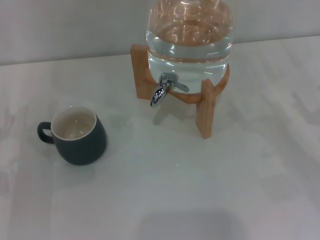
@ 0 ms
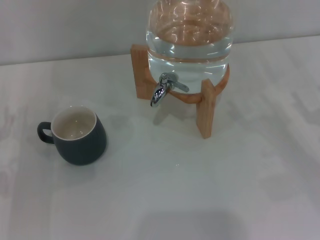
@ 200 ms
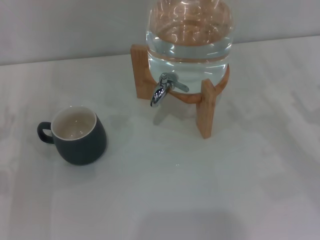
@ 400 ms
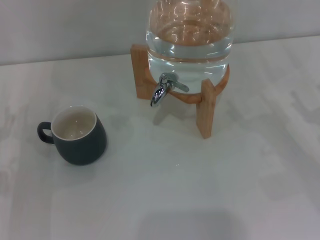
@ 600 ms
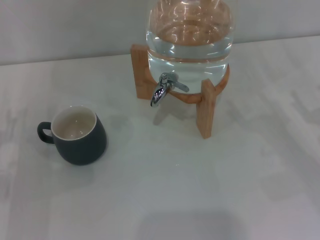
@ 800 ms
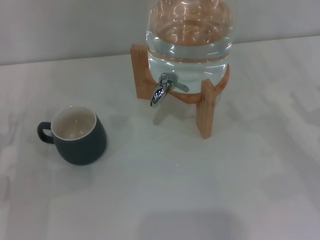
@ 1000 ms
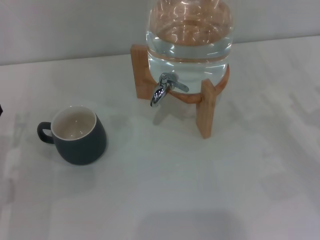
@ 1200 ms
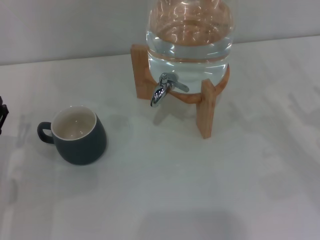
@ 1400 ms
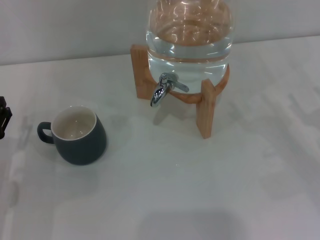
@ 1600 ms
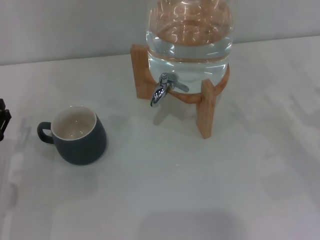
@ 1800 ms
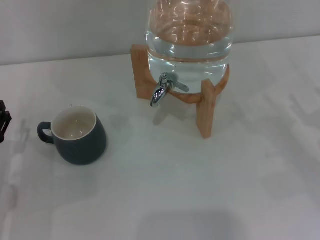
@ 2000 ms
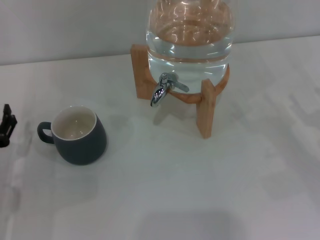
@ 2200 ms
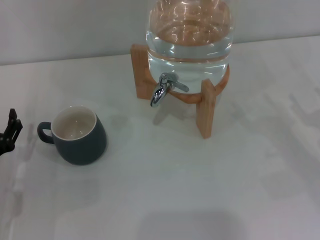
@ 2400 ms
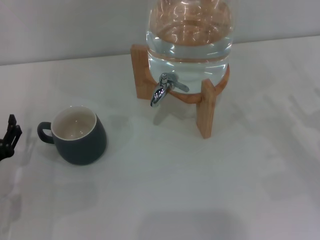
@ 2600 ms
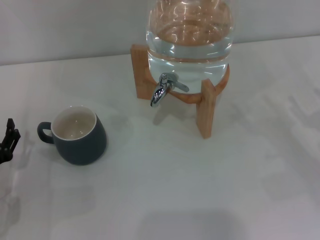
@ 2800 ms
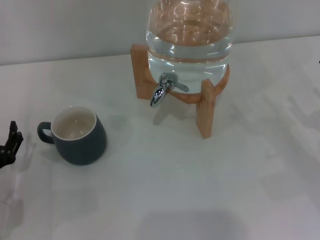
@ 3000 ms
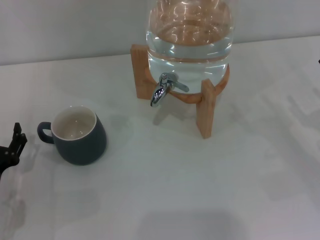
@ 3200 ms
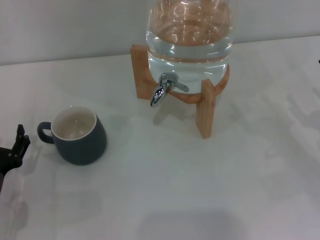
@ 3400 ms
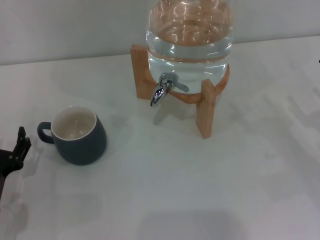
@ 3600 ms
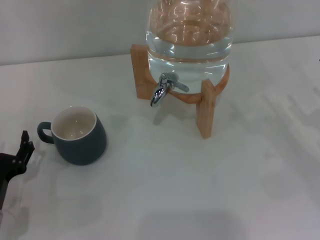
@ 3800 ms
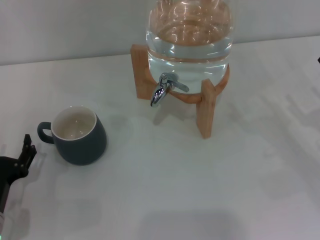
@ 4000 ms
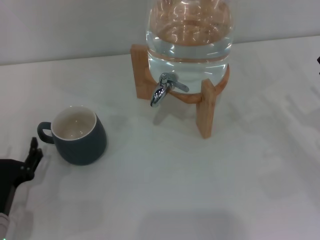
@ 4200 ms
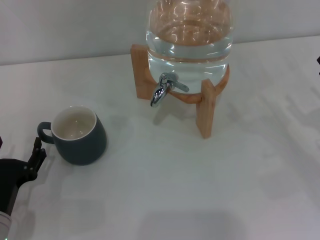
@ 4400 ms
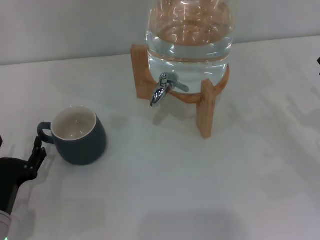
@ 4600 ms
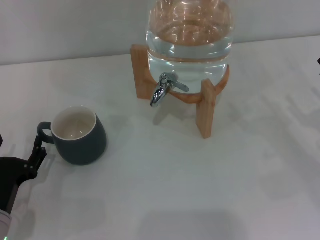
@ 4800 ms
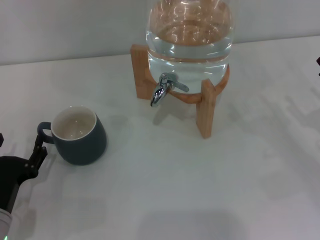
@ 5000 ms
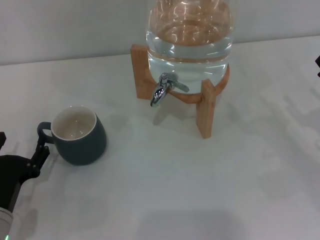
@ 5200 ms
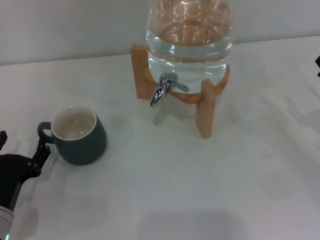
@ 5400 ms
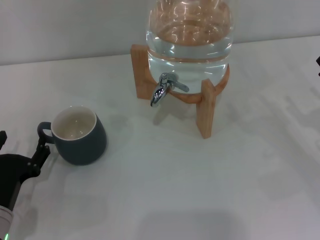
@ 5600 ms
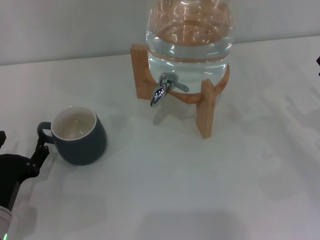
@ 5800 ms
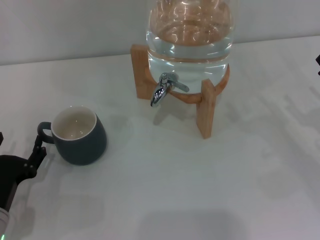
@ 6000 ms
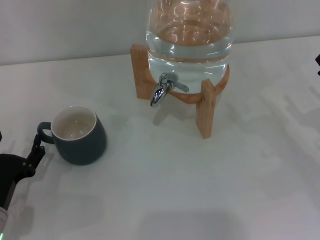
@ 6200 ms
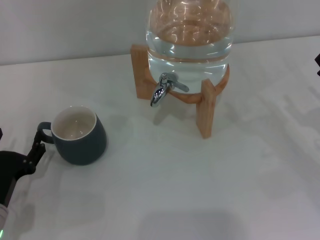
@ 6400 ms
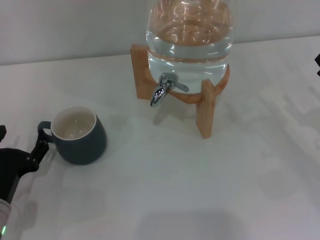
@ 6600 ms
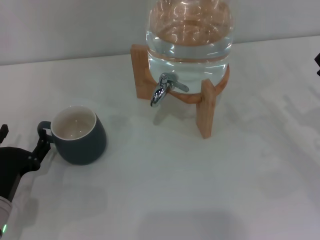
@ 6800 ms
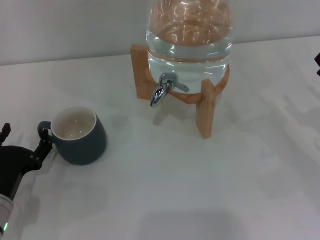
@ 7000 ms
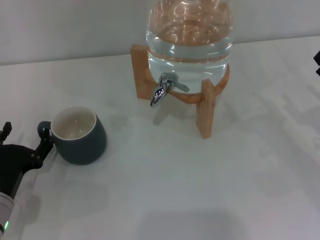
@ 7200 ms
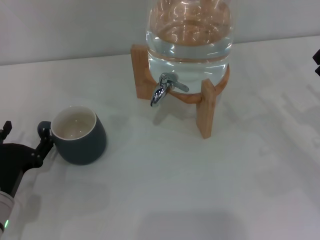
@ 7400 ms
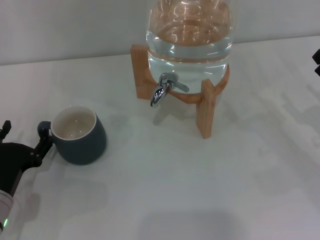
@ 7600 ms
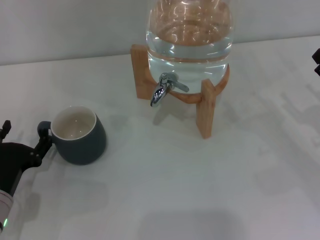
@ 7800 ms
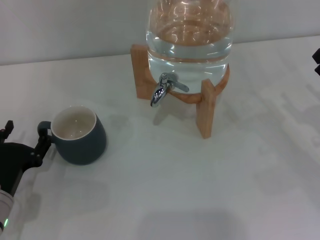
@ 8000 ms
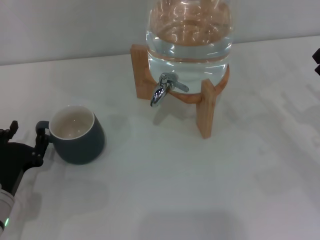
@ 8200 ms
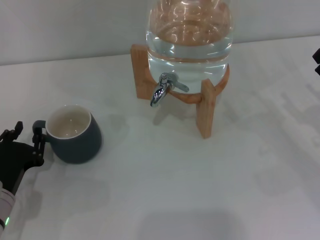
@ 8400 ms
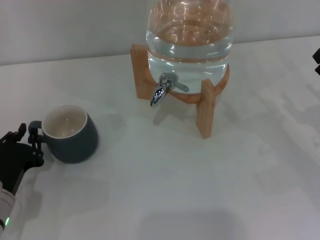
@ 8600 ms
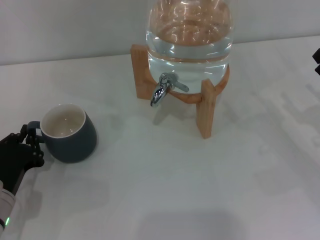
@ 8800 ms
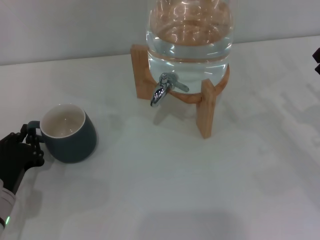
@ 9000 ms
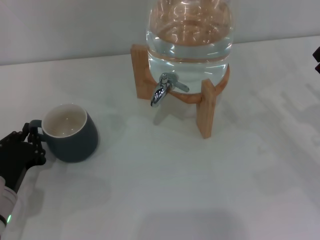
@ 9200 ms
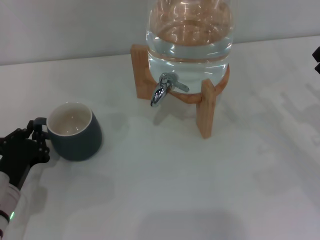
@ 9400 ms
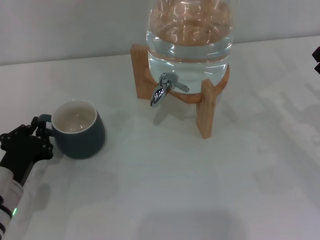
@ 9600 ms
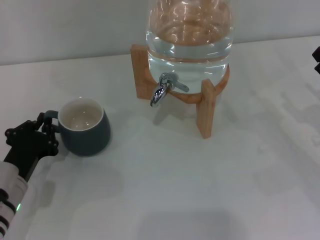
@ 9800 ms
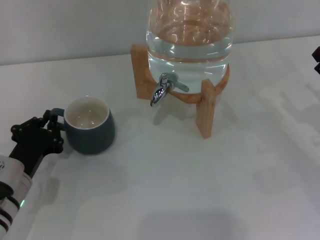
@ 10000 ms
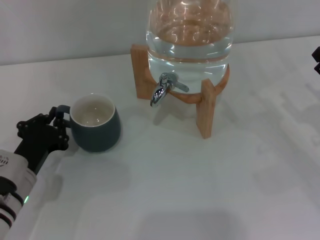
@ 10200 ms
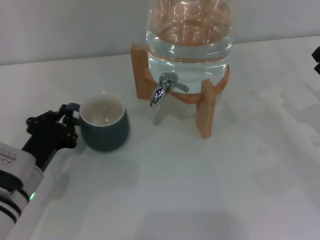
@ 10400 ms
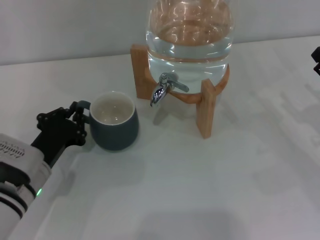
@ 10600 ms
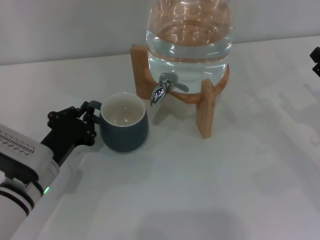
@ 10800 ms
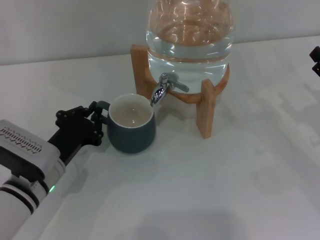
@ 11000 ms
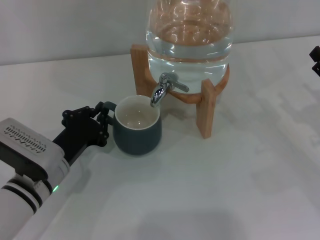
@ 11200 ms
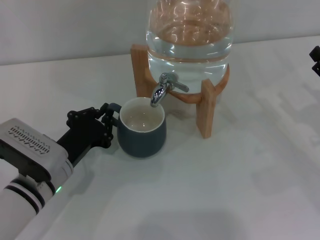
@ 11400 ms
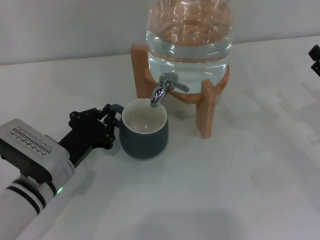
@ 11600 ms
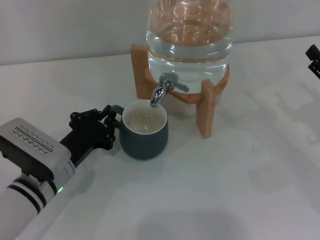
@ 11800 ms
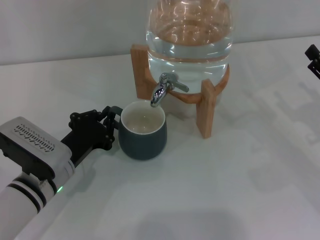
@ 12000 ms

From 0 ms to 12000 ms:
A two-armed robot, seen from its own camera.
Task of the whole recording: the left gripper pick up the black cup and place it horizontally under the faucet, the right gripper turn on the faucet to fill the cup, and then turn off the faucet.
From 1600 ms to 3000 ms: The grippers move only a little.
From 3000 ms to 4400 ms: The grippers make only small movements.
From 4400 ms to 6000 ms: Both grippers stay about where they are.
From 6000 ms to 7600 ms: The grippers move only a little.
From 7600 ms to 9000 ms: The left gripper closes.
From 9000 ms to 10400 ms: The left gripper ends up some 5 cm from where it was.
From 10400 ms to 12000 ms: The grippers move only a little.

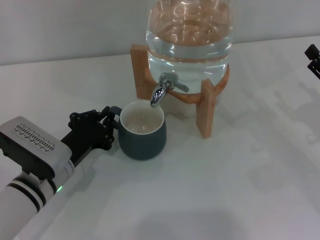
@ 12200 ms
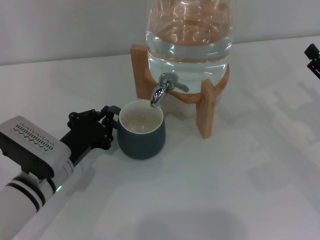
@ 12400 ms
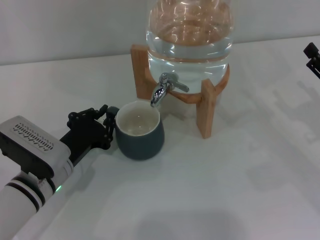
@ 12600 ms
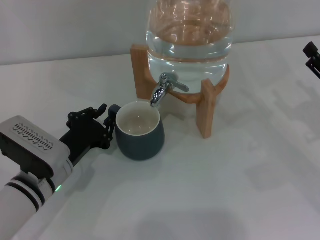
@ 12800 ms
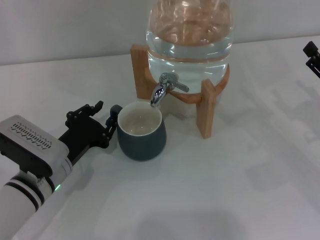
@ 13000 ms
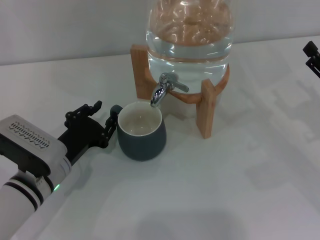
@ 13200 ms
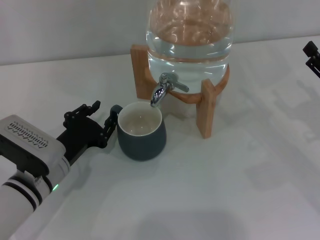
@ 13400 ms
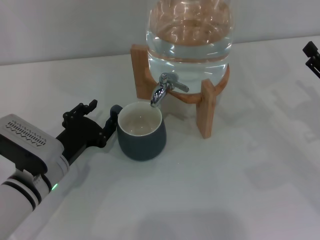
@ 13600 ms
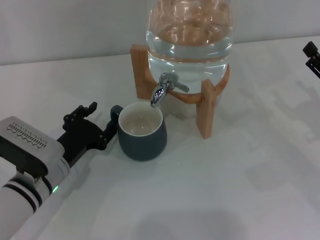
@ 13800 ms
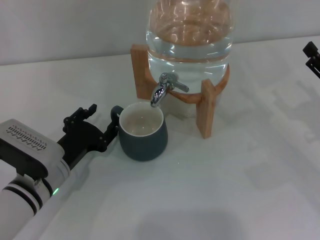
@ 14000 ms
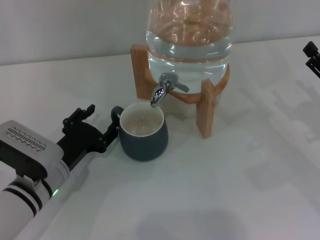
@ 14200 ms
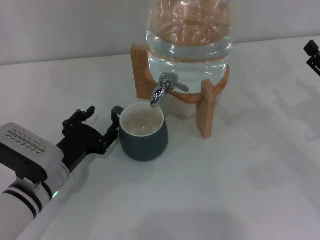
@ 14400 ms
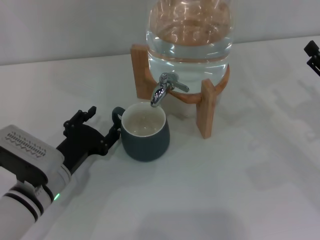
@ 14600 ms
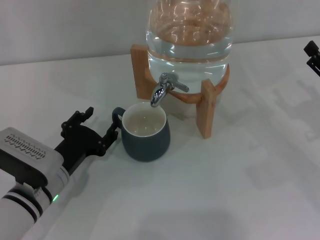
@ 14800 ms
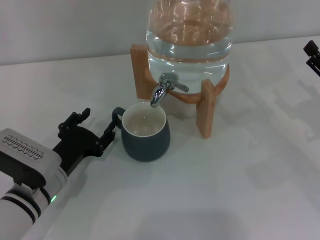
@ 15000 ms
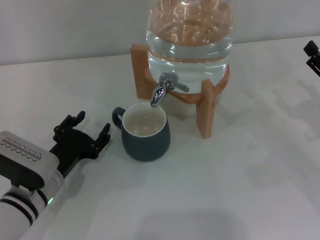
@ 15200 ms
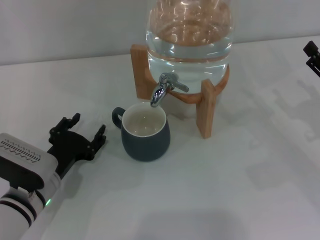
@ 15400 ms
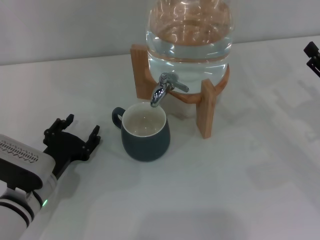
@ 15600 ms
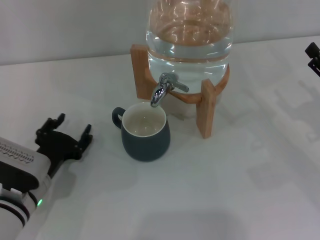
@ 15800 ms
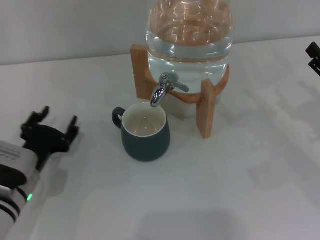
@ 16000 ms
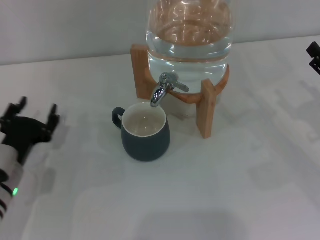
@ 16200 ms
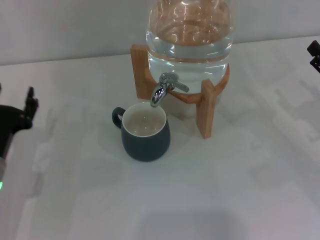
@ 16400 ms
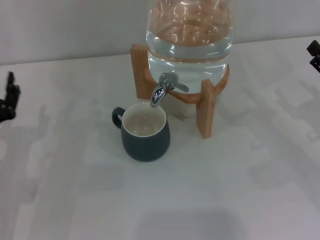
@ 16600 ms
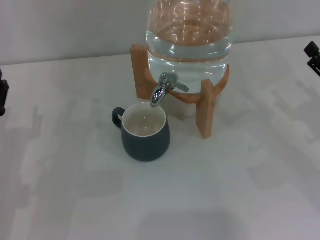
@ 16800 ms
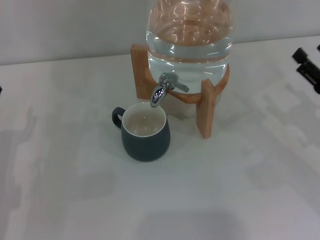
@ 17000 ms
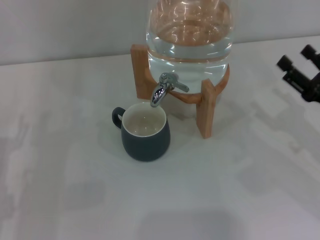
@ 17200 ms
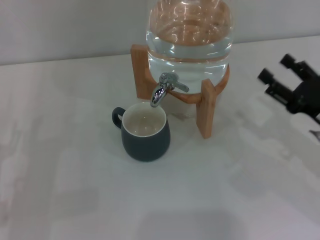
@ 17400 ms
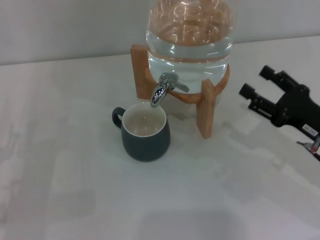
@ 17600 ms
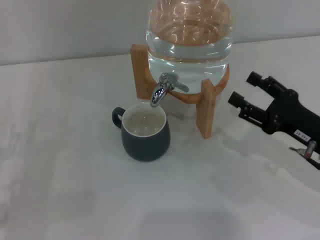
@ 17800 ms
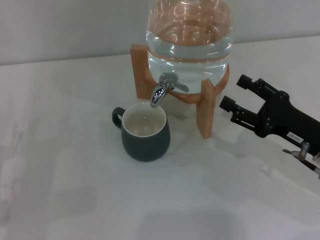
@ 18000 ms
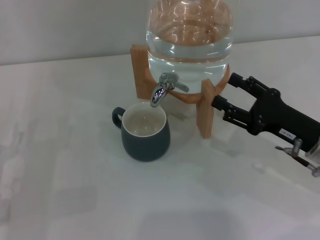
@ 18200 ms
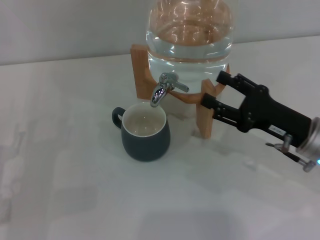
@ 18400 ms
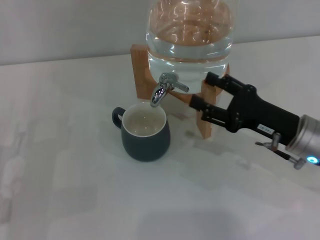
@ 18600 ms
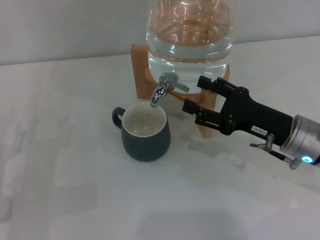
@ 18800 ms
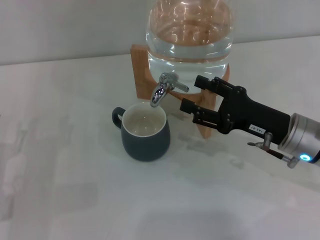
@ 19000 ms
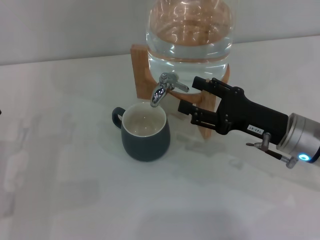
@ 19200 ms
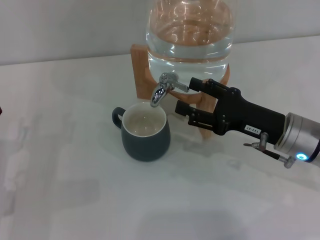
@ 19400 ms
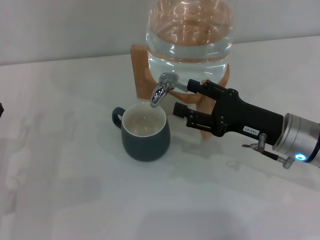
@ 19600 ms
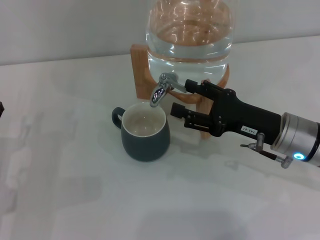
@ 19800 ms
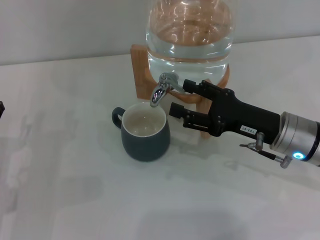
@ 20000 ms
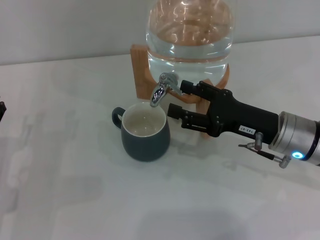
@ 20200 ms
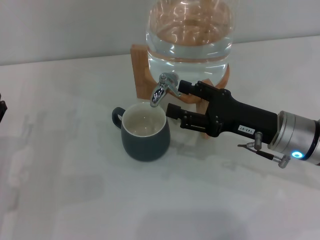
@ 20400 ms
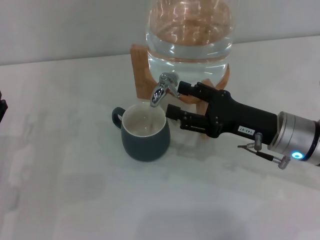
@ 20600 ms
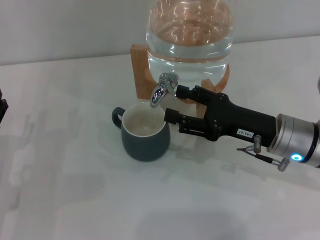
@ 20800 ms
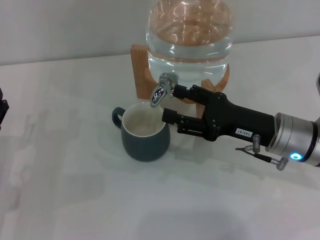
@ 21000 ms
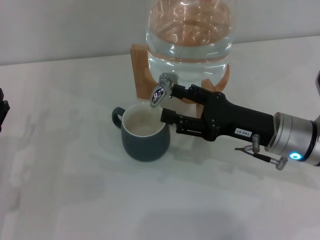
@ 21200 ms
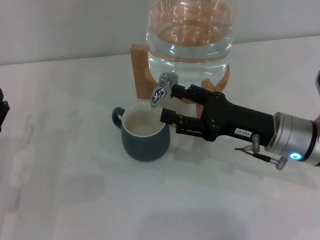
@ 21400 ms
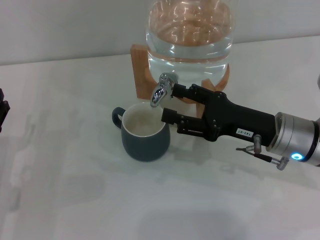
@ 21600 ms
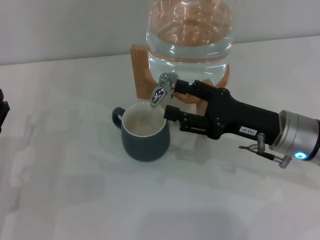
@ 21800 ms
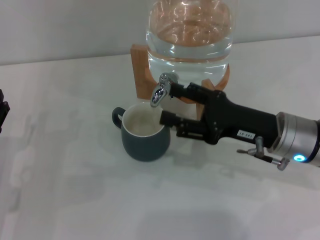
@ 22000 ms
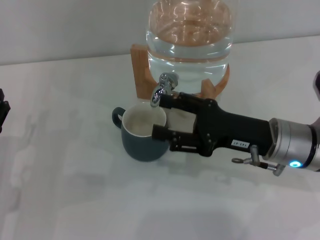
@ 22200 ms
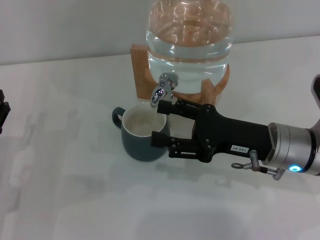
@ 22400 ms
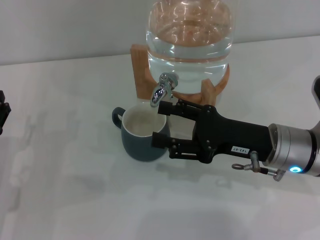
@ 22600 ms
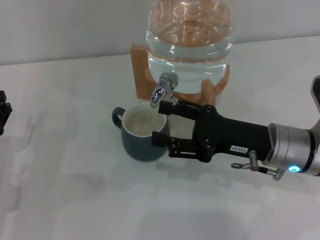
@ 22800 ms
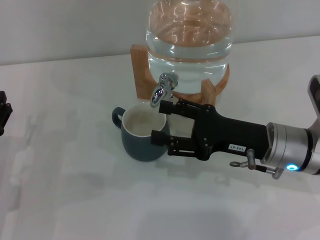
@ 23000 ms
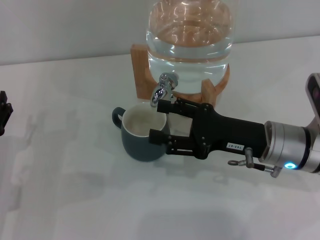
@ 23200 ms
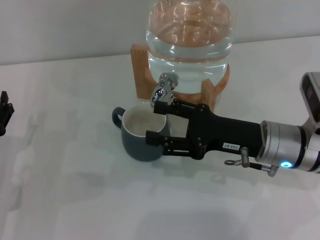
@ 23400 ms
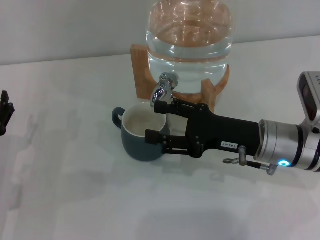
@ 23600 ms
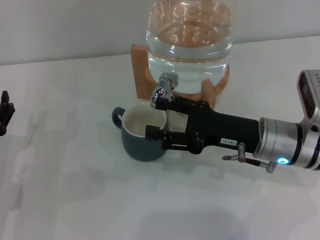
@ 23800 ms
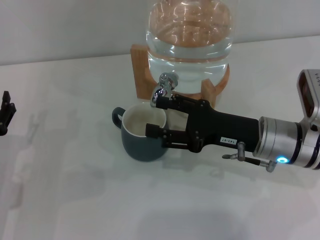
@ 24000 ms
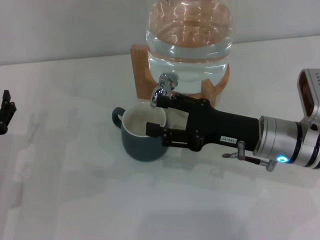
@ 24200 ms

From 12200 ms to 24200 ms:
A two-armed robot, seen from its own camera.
Task of the whole recording: the left gripper pick up the black cup and place it horizontally under the faucet, the right gripper turn on the faucet to fill the cup, and then turn off the faucet.
Step, from 12200 ms to 15600 ms: Move the cup beneath the water dispenser nozzle with the left gripper.
Step, from 15800 ms to 24200 ms: Open the dispenser valve and fill the cup with water with the right gripper.
From 12200 ms to 13800 ms: The left gripper opens up.
From 13800 ms to 15200 ms: The grippers stay close to where they were, moving slightly.
From 15200 ms to 16600 ms: The left gripper goes about 5 cm to the left.
From 16600 ms to 18200 ms: The right gripper is displaced to the left by roughly 10 cm.
From 18200 ms to 19800 ms: The right gripper shifts by roughly 5 cm.
From 19800 ms to 24200 ms: The grippers make only small movements.
